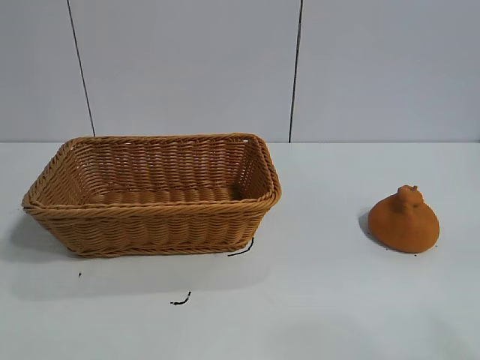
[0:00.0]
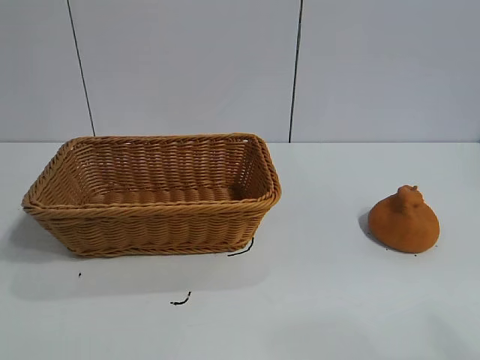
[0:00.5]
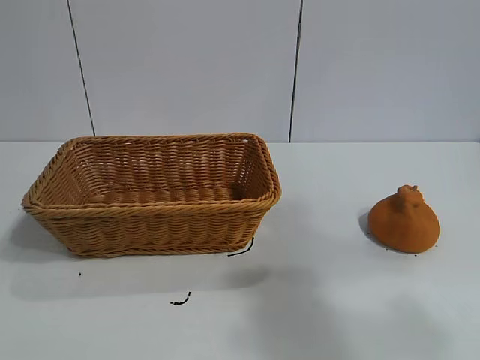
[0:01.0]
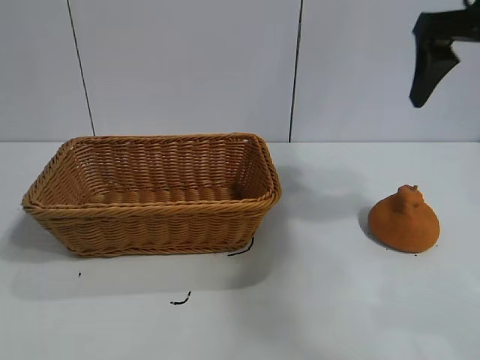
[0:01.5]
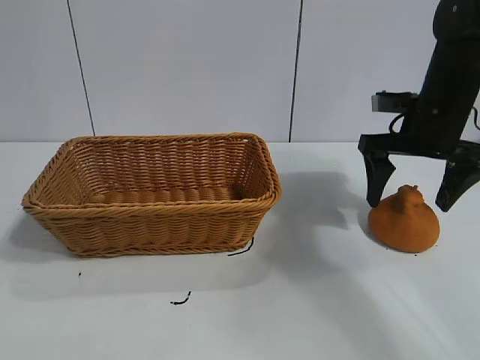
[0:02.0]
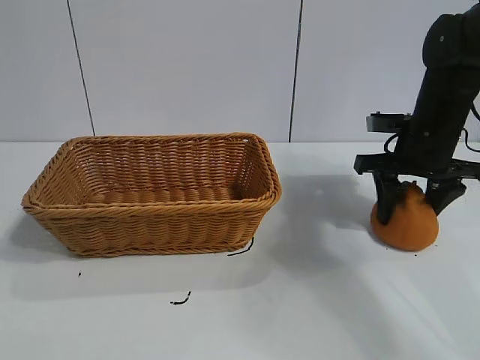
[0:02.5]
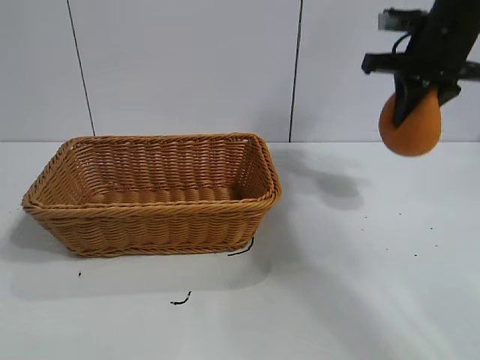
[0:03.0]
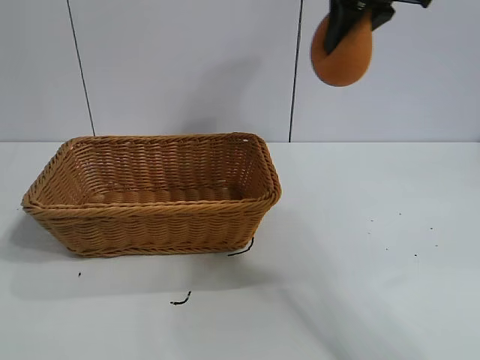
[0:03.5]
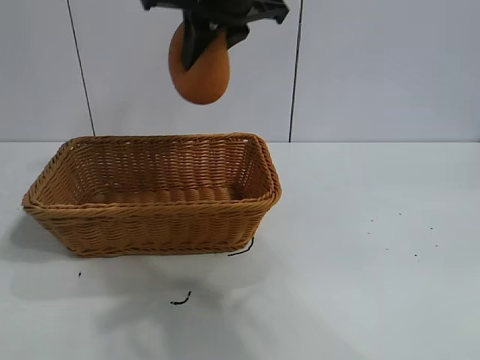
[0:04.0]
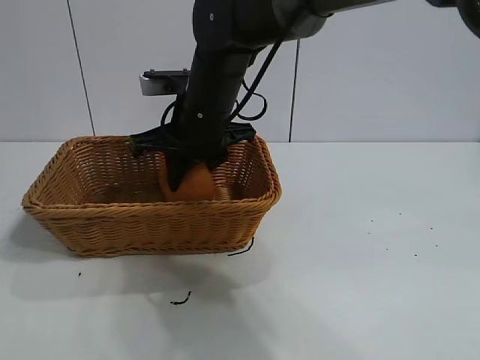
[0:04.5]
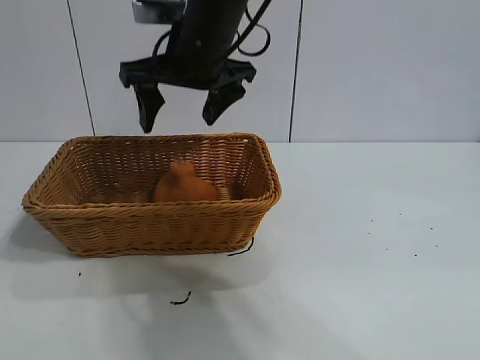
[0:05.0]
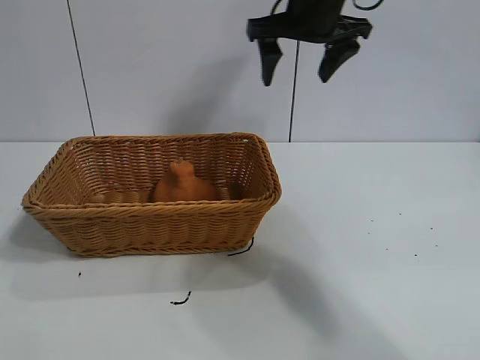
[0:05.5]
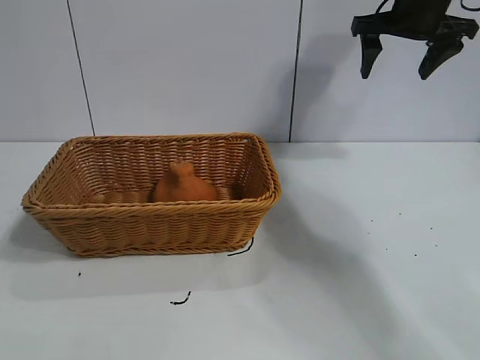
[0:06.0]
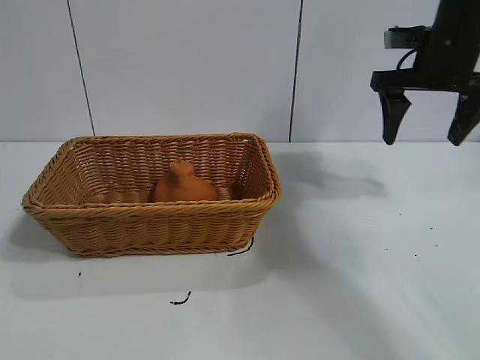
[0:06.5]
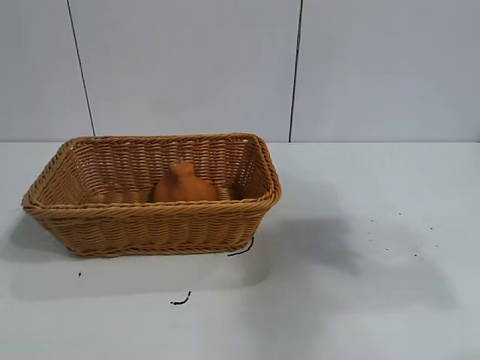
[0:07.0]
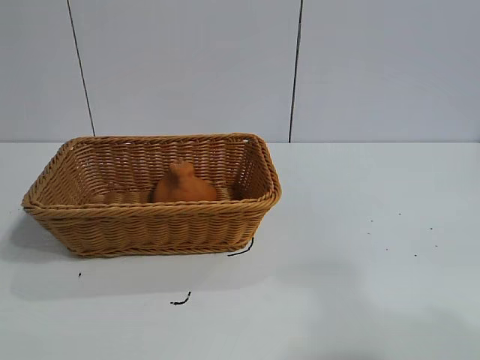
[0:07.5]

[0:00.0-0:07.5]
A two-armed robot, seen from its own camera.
Task of the whole recording: pick up the orange and put it into the basket.
Step, 0:01.0 to 0:02.5: Grasp the orange with right gripper.
Step, 0:03.0 to 0:04.5: Place the orange in the basket with right gripper.

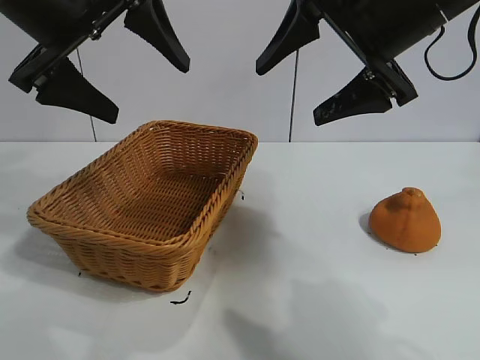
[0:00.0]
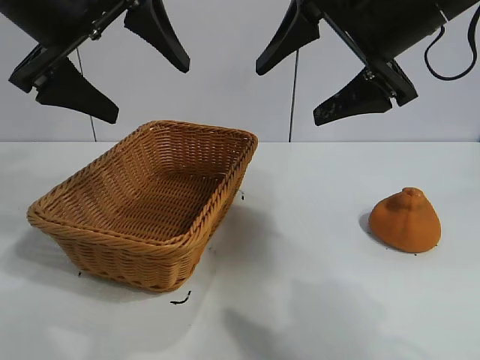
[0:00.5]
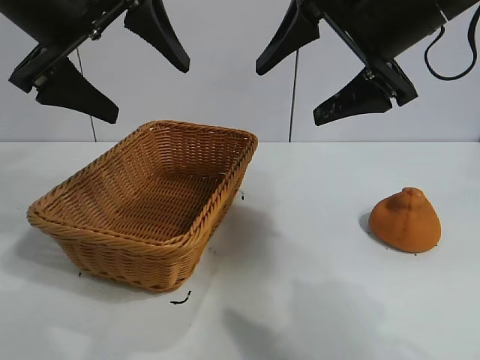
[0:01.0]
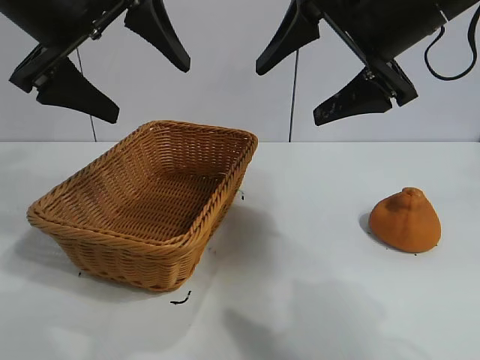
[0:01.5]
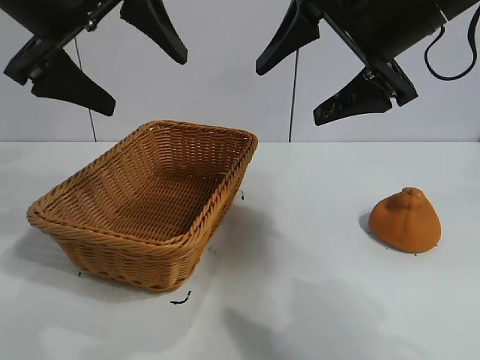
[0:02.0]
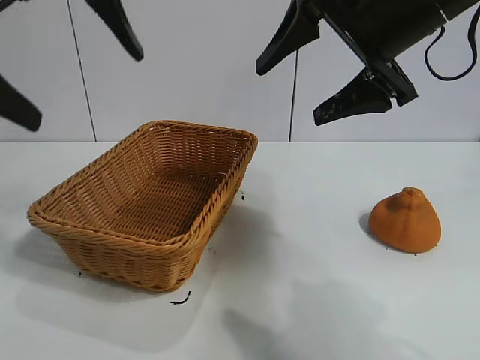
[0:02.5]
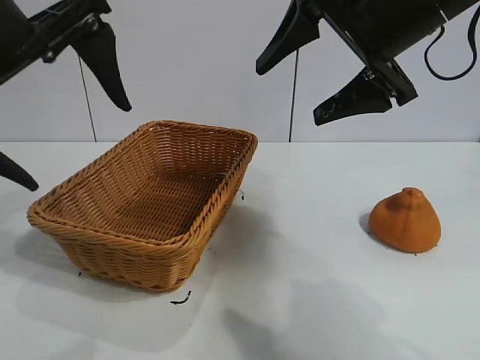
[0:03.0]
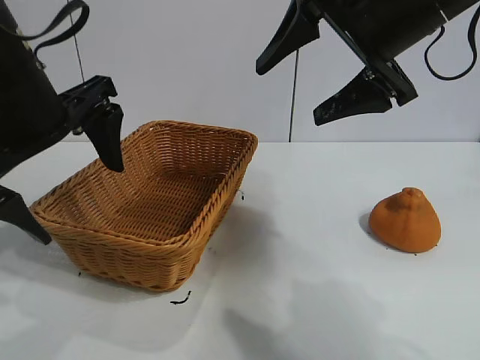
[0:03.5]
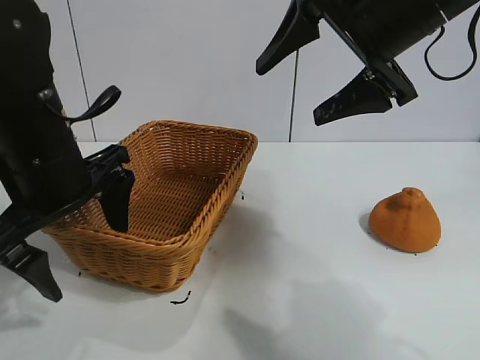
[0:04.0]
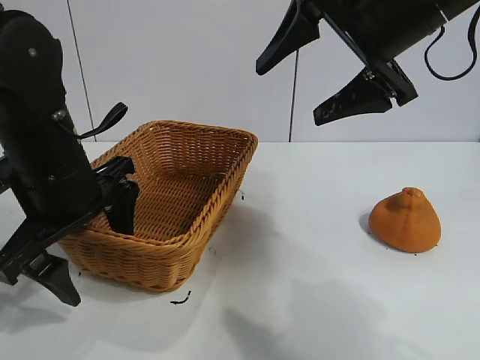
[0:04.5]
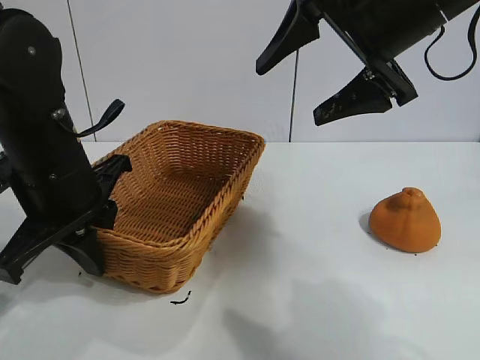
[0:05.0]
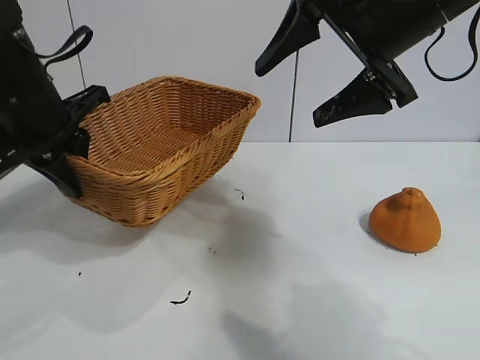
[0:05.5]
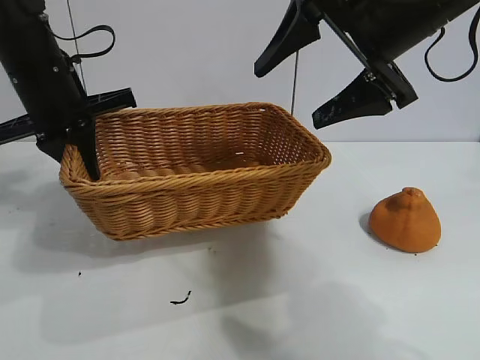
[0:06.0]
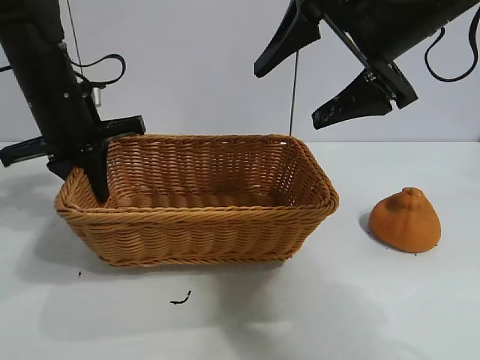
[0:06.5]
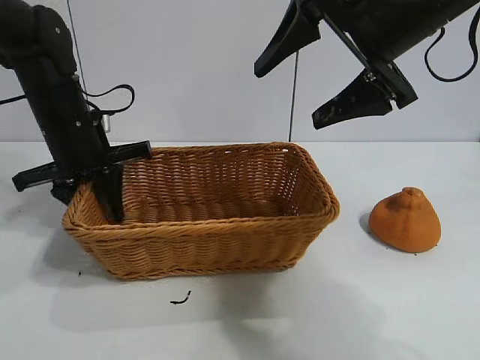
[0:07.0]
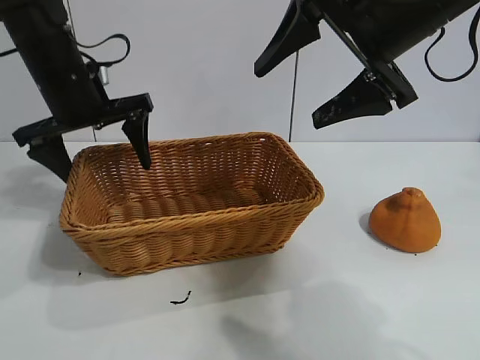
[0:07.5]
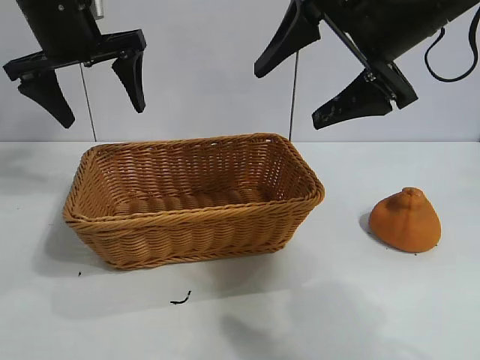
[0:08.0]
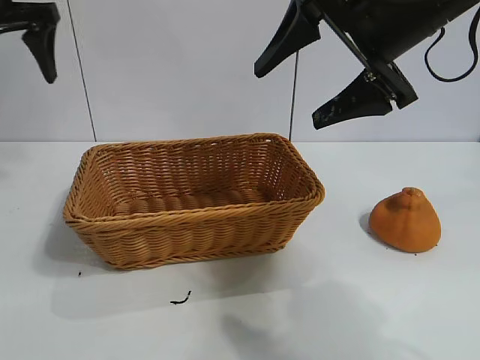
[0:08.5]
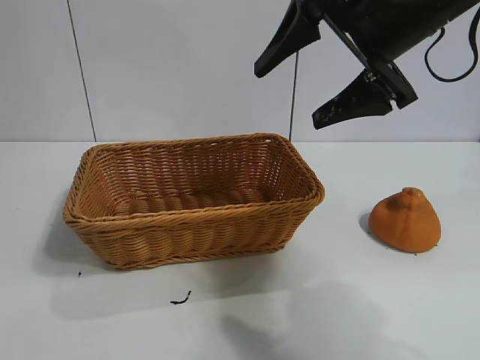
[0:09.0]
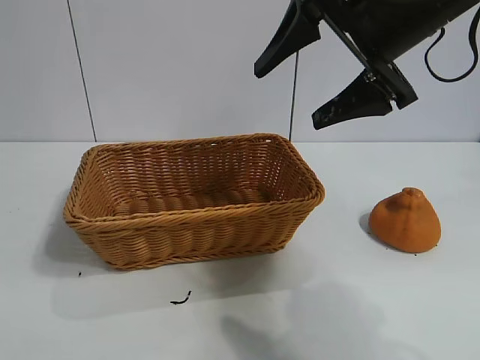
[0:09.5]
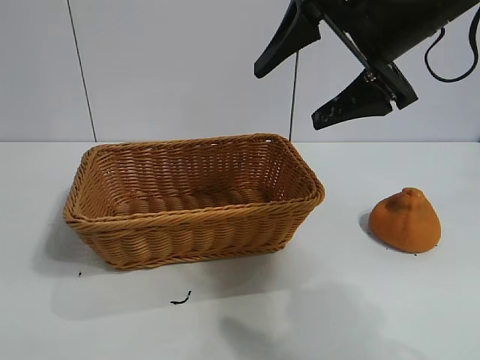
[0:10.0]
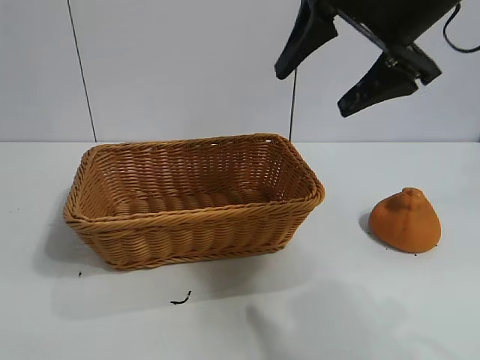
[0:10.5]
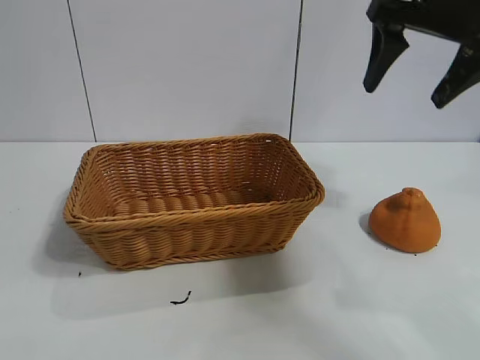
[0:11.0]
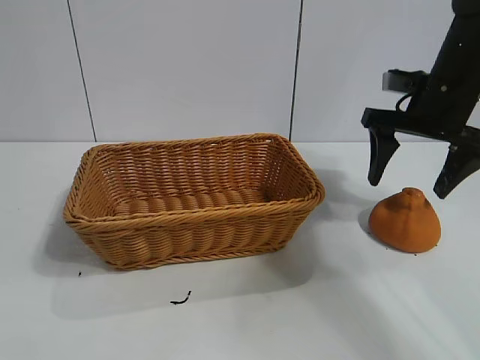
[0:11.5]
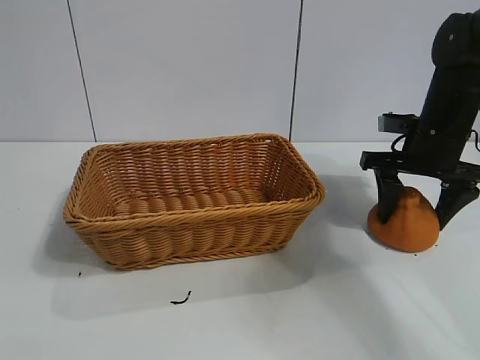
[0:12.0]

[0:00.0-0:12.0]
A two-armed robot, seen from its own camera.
Task of the whole recording: pick up the orange and put it into the basket.
Step, 0:02.0 to 0:05.0: Grasp the basket with left gripper.
Step, 0:05.5 to 0:07.0: Place the basket in the center of view with left gripper.

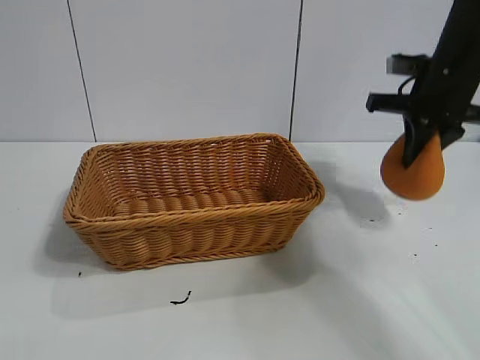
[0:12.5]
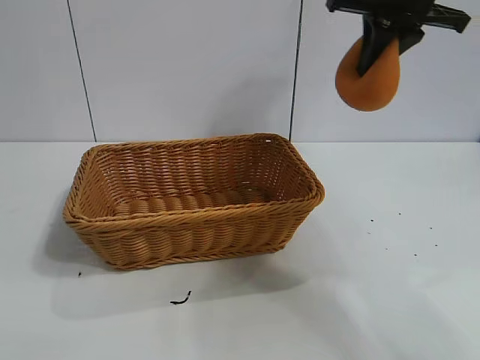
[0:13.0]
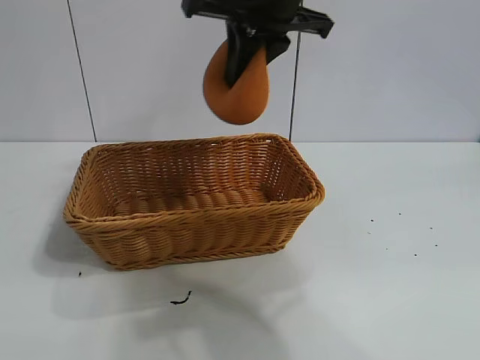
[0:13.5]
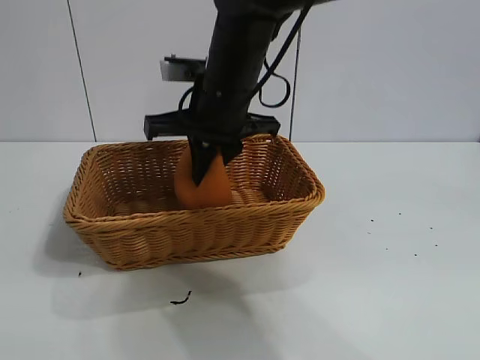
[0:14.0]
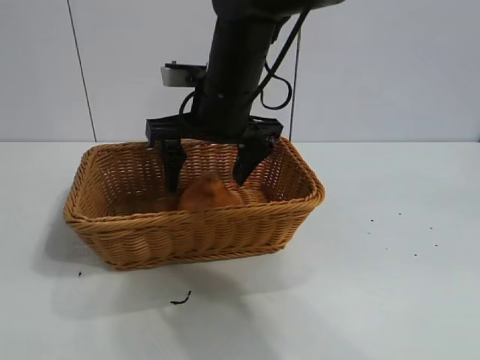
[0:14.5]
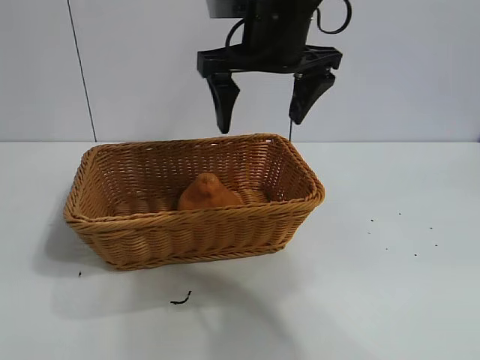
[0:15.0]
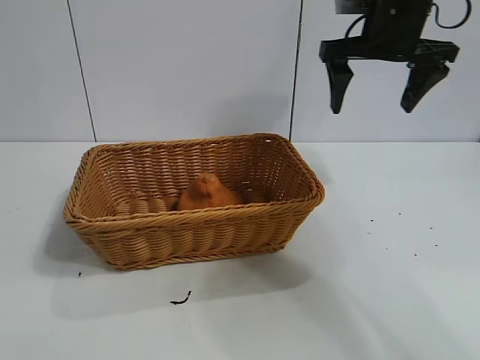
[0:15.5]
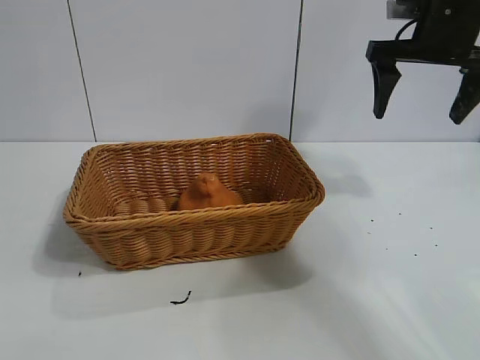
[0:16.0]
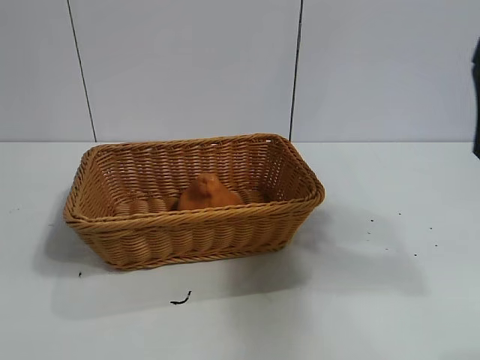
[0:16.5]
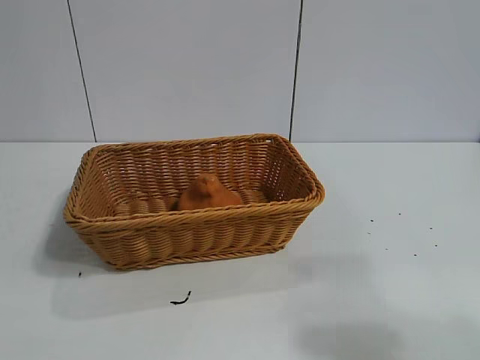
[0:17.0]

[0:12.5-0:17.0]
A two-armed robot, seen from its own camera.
Task of the whole recording: pick up the orange and put it into the basket.
Step, 0:12.5 to 0:14.0: Place the orange in the basket with right gripper.
